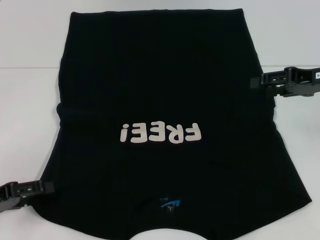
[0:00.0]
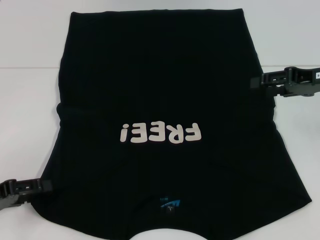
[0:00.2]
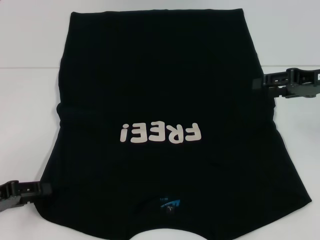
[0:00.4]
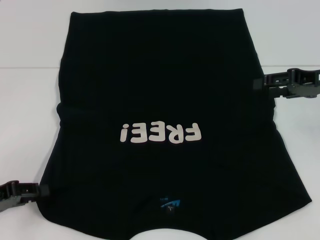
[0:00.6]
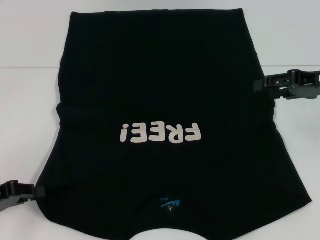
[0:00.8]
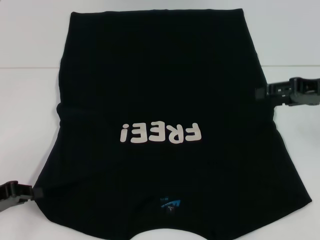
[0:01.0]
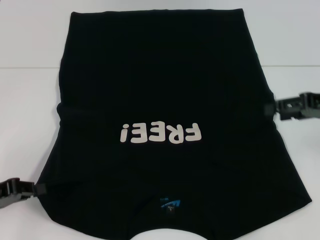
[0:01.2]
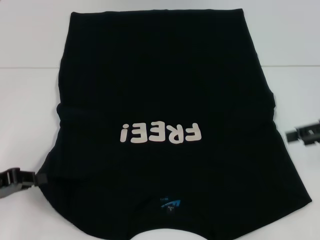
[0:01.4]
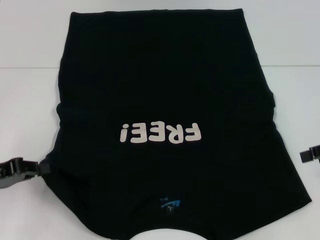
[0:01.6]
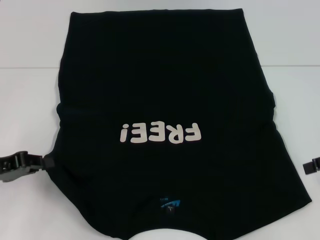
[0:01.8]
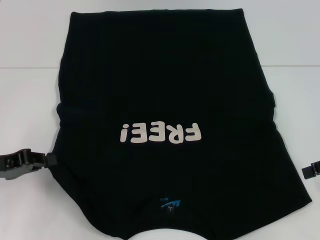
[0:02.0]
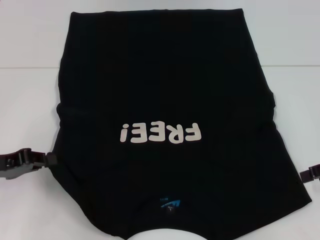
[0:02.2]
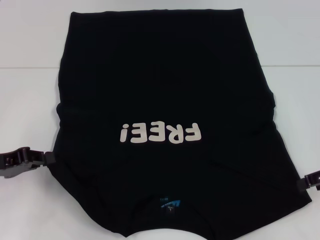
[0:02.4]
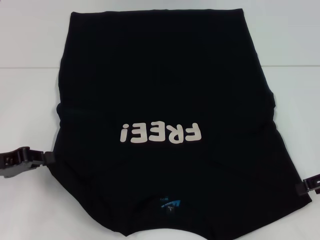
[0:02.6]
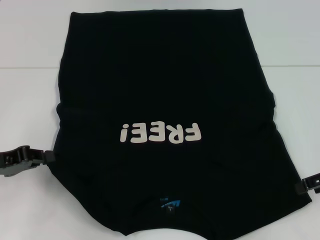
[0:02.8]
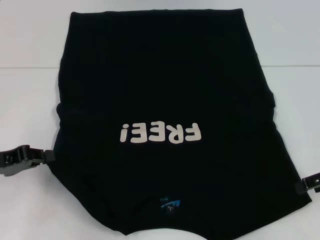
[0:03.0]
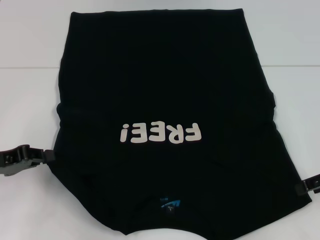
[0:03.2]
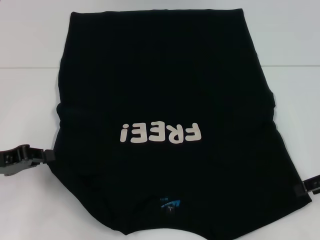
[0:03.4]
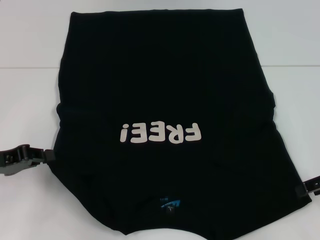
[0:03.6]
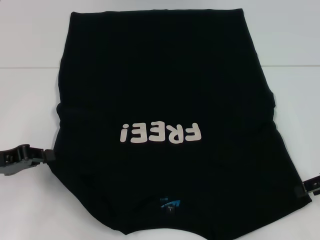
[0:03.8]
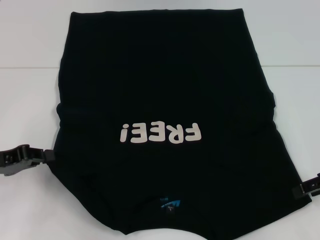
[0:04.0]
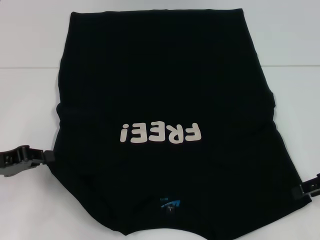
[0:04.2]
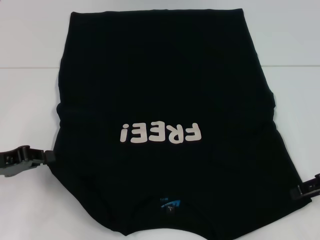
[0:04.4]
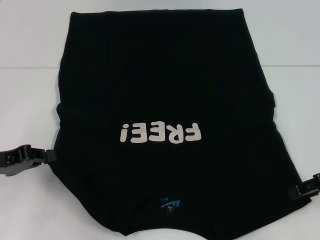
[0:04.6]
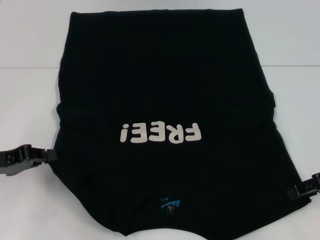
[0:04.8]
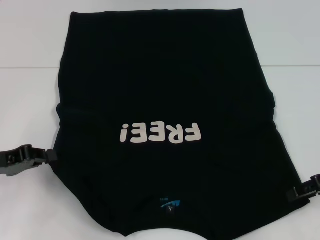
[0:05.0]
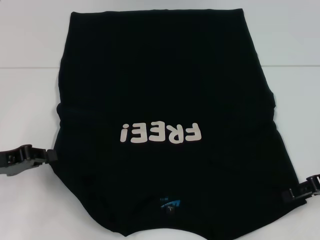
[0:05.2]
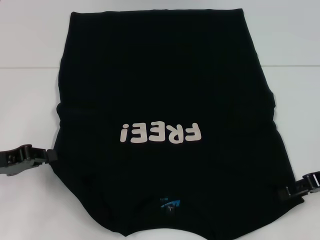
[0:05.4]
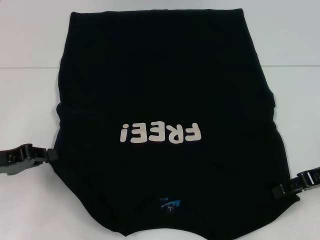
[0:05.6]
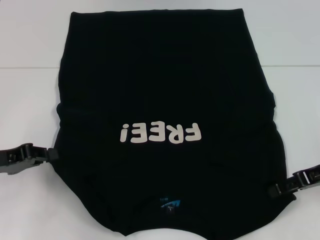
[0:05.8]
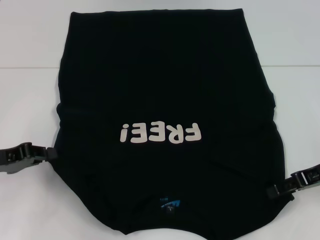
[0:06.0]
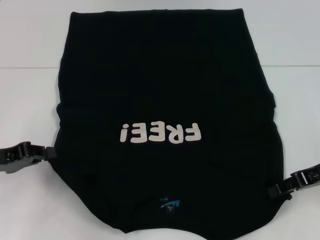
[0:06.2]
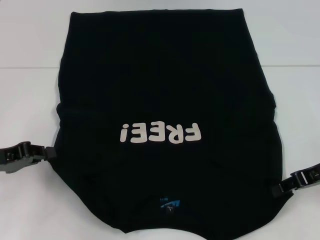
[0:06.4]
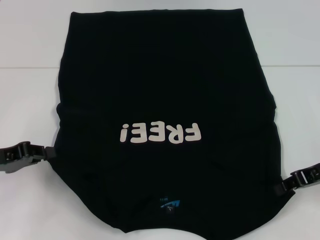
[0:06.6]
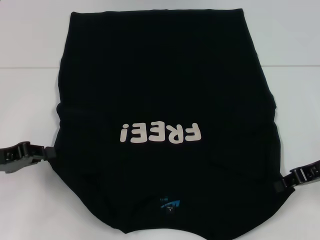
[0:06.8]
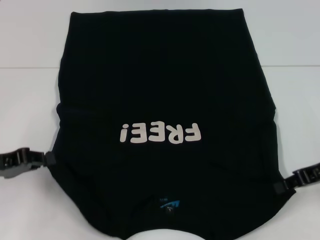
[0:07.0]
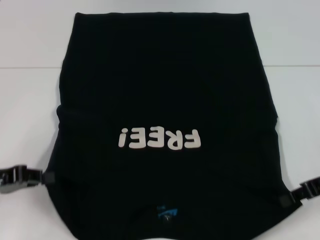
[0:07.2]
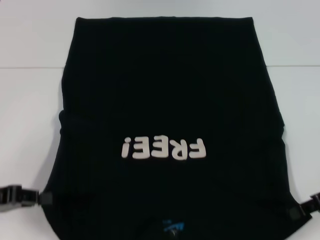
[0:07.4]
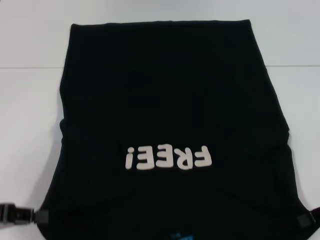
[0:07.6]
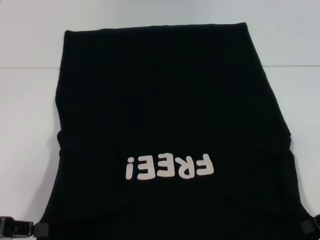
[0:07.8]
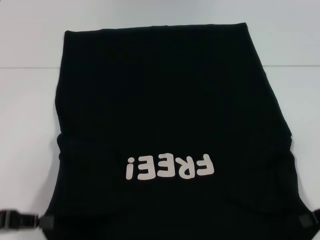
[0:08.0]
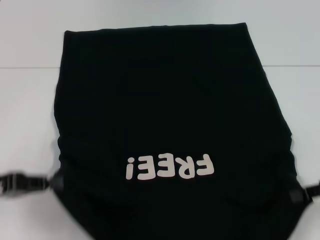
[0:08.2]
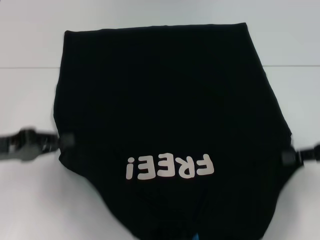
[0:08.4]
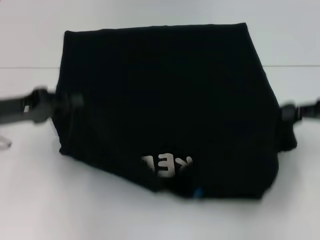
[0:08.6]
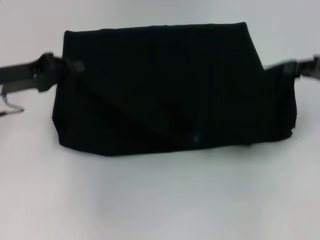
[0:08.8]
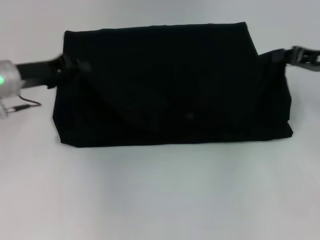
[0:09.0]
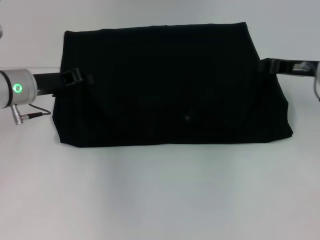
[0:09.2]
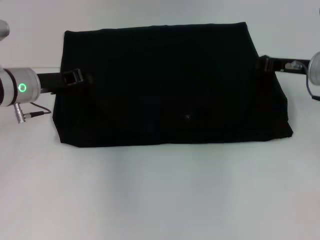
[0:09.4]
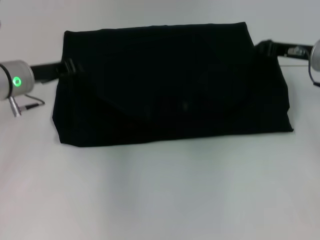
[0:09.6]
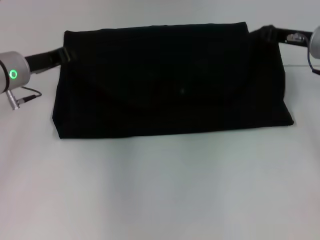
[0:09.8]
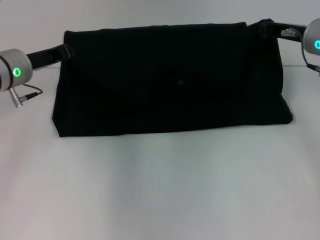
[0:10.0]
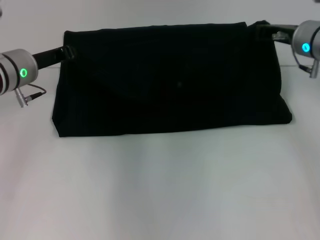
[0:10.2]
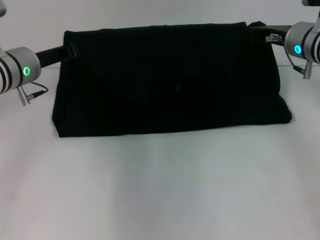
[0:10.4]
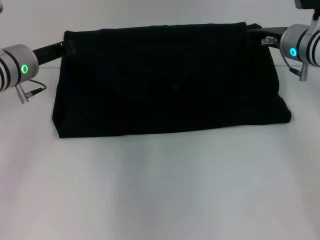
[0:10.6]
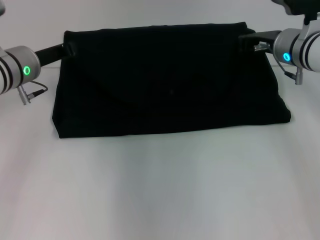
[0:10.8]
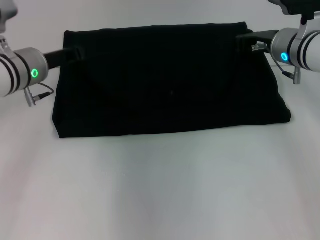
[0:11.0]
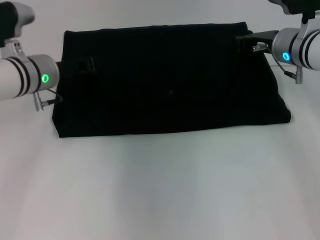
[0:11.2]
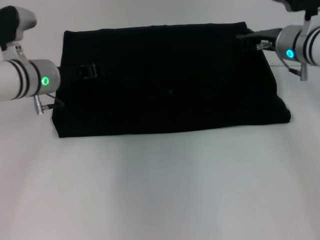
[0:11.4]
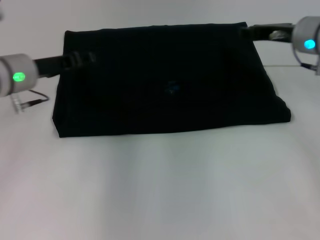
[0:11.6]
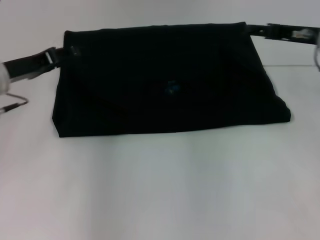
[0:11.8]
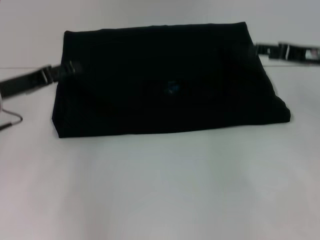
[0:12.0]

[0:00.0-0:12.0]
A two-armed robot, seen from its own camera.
Step, 0:01.4 to 0:05.4: Grab the bottom right corner with your right hand.
Step, 0:05.6 to 0:11.6: Fold the clothes with your left hand.
Step, 0:05.6 to 0:11.6: Fold the clothes with your right hand.
0:00.0 to 0:01.6: The left gripper closes up. The right gripper goes roughly 10 cm to the right and backward.
0:01.6 to 0:03.0: The grippers move only a little.
0:04.4 to 0:06.0: The grippers make only small movements.
0:06.0 to 0:07.6: The right gripper changes place by some 5 cm, and closes up; the left gripper goes some 5 cm backward.
0:07.6 to 0:09.0: The right gripper shifts about 10 cm forward. The left gripper shifts approximately 20 cm forward and to the right.
0:09.0 to 0:10.4: The right gripper shifts approximately 10 cm to the left and forward.
0:10.4 to 0:12.0: The left gripper goes some 10 cm backward and to the left, and opens, while the right gripper goes roughly 10 cm to the right and backward, and opens up.

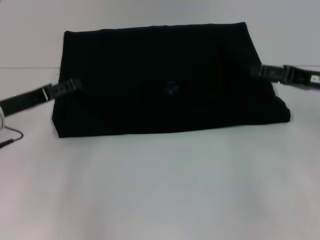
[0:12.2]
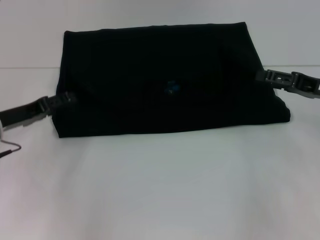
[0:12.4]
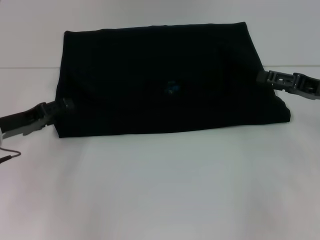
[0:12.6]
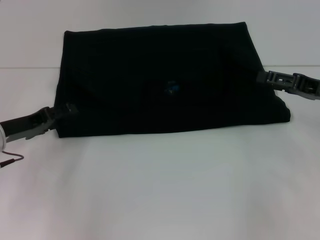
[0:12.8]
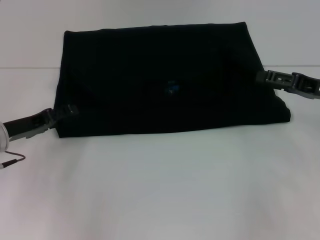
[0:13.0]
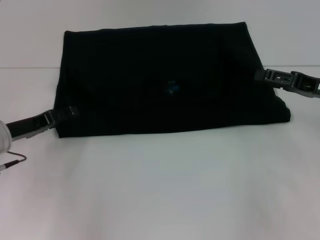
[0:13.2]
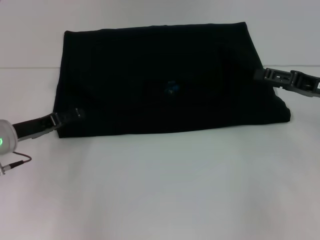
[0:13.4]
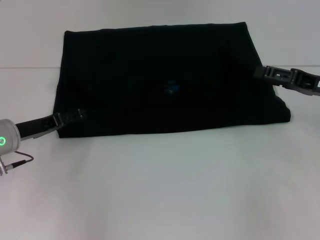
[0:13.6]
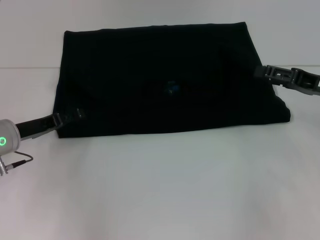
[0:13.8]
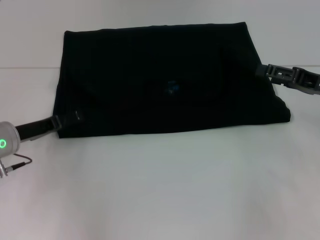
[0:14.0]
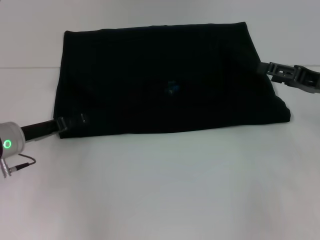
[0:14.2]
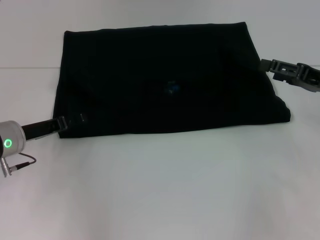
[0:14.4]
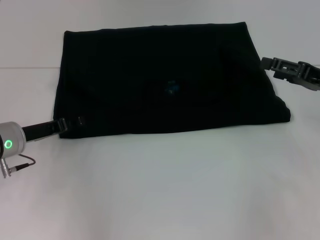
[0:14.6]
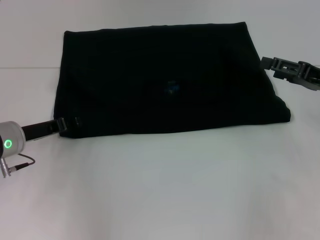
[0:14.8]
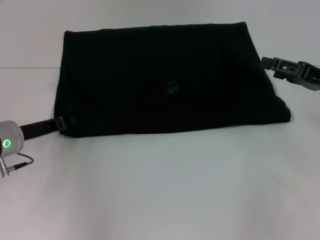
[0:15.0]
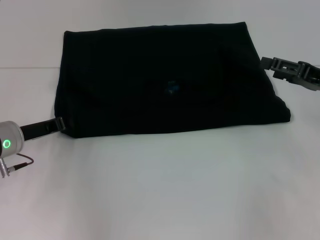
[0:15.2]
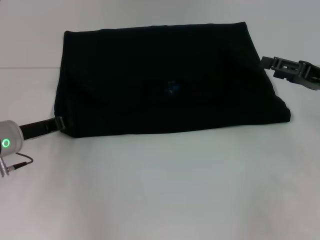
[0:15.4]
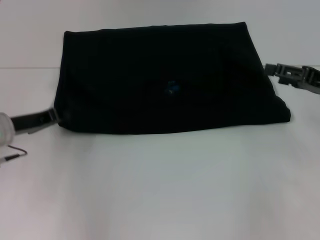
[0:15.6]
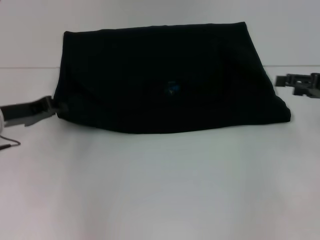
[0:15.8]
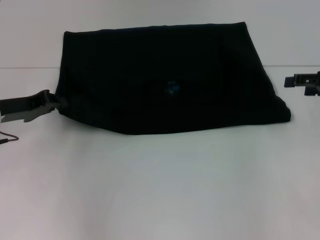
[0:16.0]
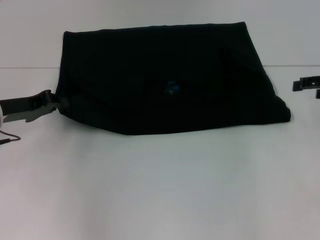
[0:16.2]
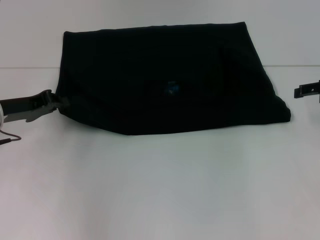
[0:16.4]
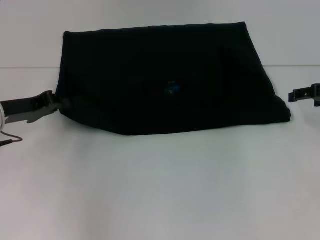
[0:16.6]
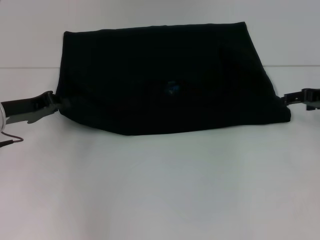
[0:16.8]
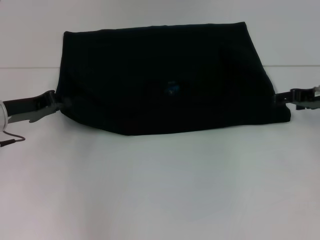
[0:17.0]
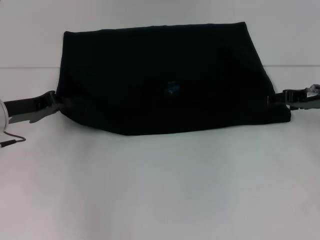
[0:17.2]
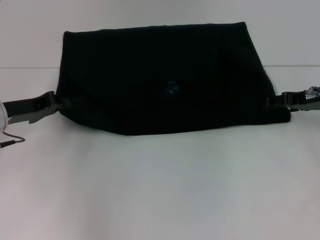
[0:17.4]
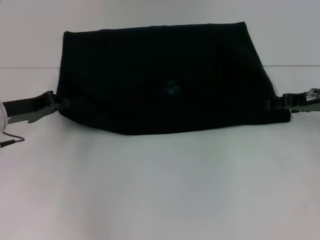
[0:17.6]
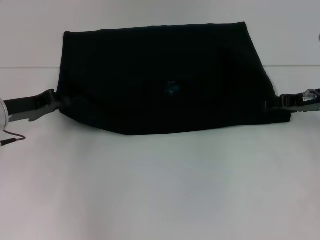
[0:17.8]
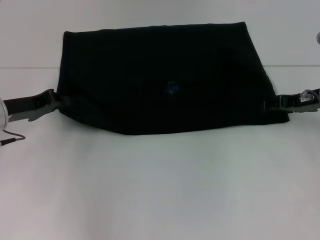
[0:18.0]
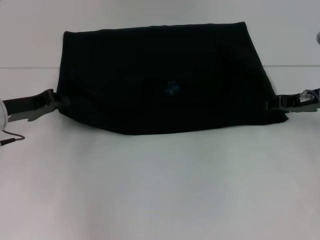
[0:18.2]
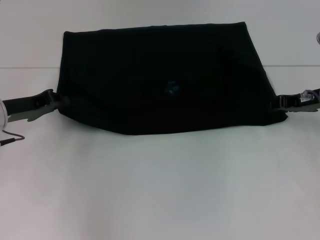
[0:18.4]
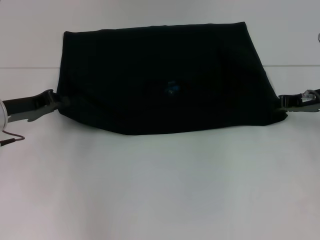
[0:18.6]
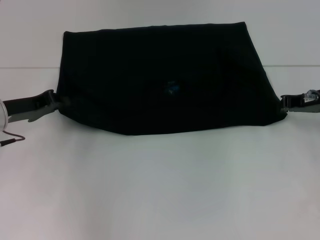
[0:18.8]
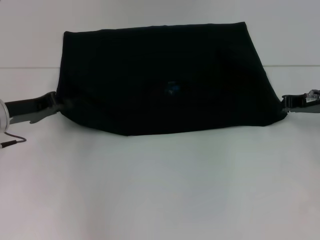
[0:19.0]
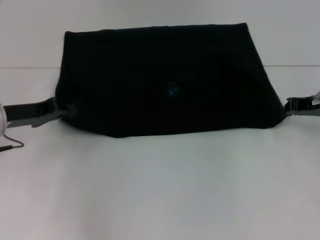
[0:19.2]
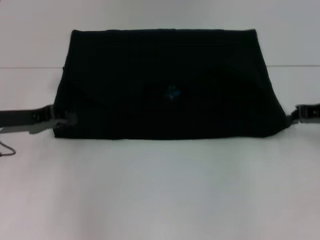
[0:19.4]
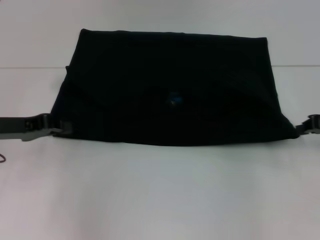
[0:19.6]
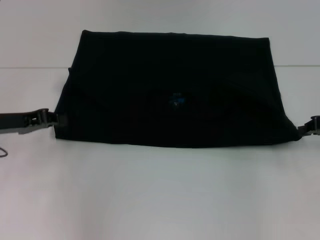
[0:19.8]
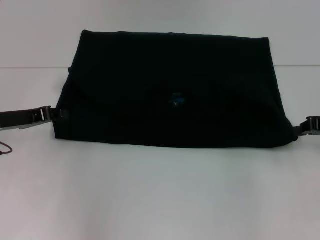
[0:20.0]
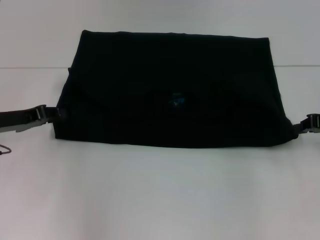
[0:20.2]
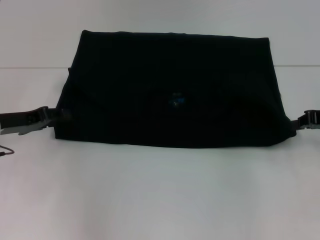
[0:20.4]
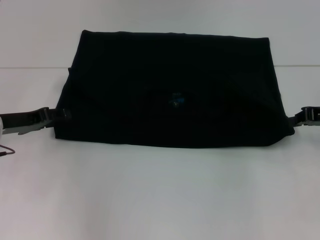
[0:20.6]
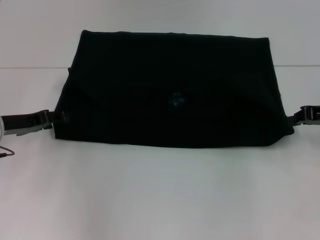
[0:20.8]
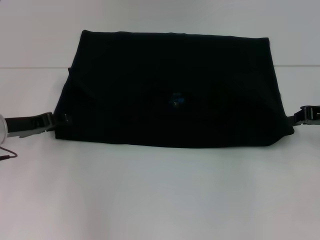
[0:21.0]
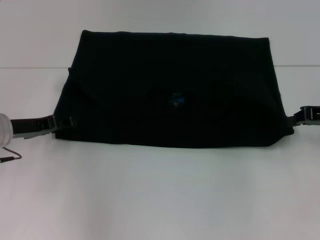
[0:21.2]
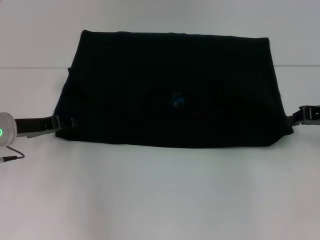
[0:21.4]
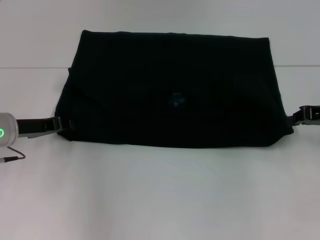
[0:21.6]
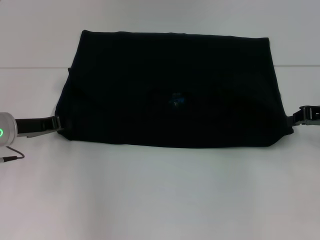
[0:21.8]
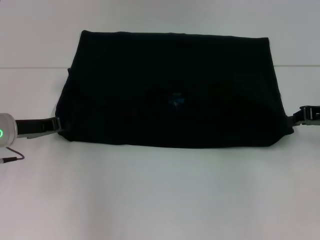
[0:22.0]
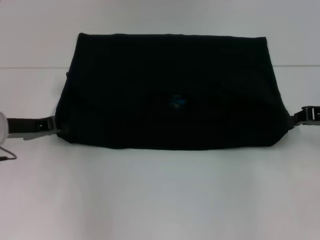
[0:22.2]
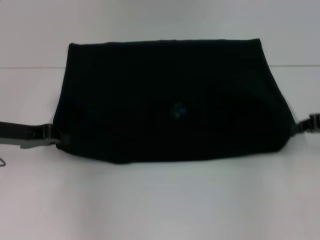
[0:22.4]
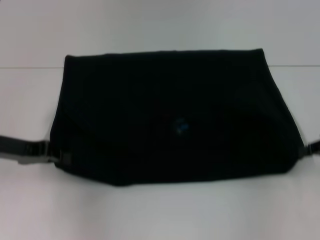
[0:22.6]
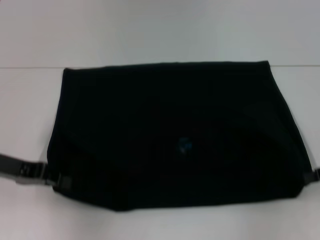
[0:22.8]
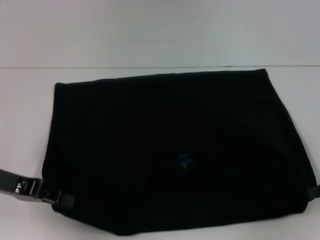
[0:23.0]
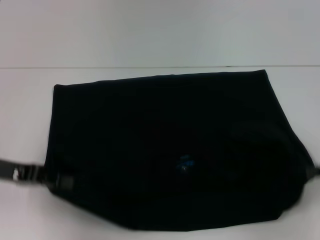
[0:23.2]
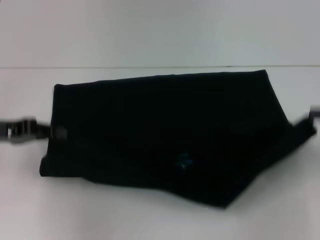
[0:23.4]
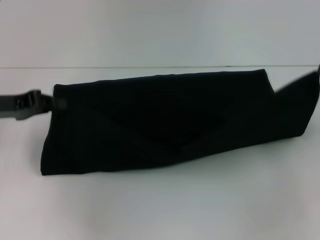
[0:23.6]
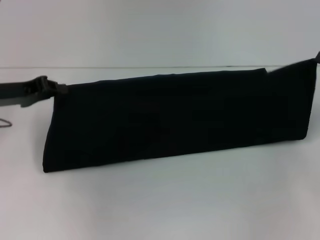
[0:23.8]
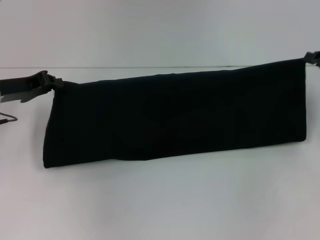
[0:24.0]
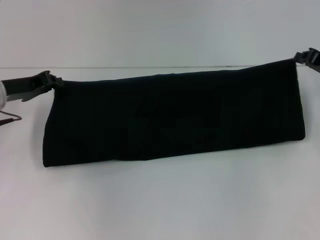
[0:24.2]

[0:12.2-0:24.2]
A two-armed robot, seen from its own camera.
Step, 0:12.2 to 0:23.0: Pull the clothes with your left hand.
Step, 0:12.2 to 0:23.0: Pull the clothes with your right hand.
0:12.2 to 0:13.8: The grippers move only a little.
0:13.8 to 0:15.2: The left gripper closes its fingers.
0:15.2 to 0:16.6: The right gripper ends up roughly 5 cm from where it was.
0:16.6 to 0:18.2: The right gripper travels to the left by about 5 cm.
0:18.2 to 0:19.8: The right gripper is displaced backward and to the right by approximately 10 cm, and closes its fingers.
0:19.8 to 0:21.2: The left gripper opens its fingers.
0:21.2 to 0:22.6: The right gripper shifts by roughly 5 cm, while the left gripper shifts by some 5 cm, and closes up.
0:22.6 to 0:24.2: Both grippers move forward, some 5 cm.
